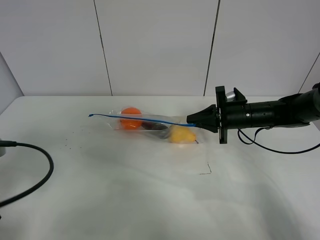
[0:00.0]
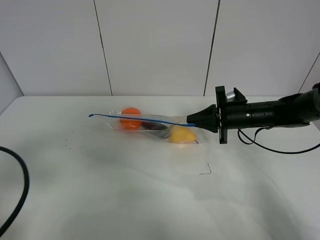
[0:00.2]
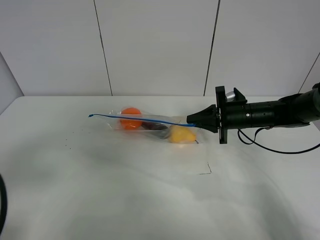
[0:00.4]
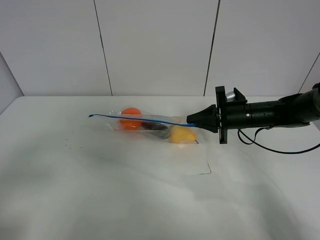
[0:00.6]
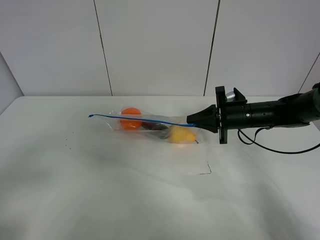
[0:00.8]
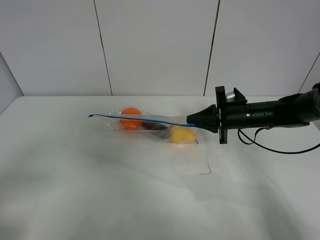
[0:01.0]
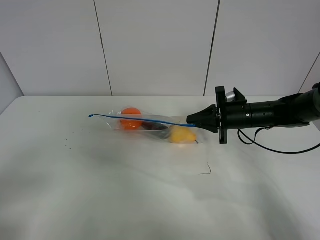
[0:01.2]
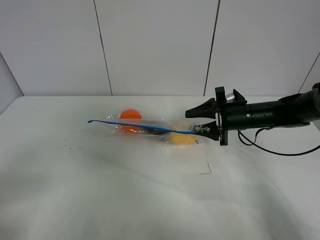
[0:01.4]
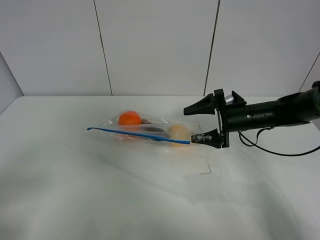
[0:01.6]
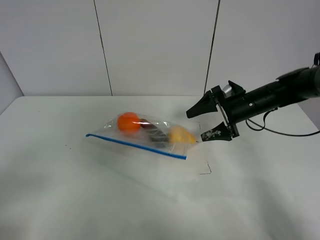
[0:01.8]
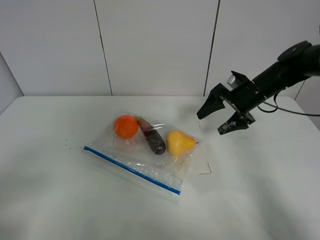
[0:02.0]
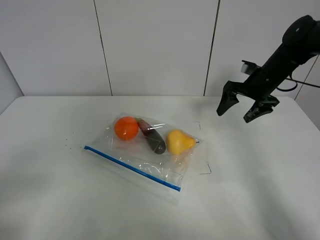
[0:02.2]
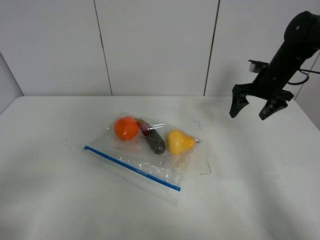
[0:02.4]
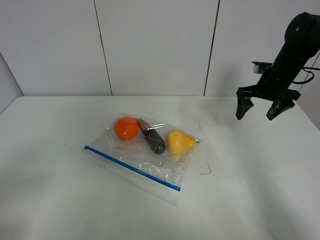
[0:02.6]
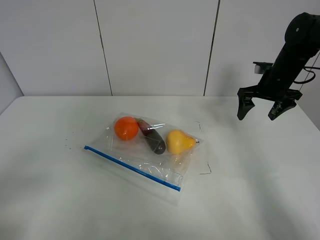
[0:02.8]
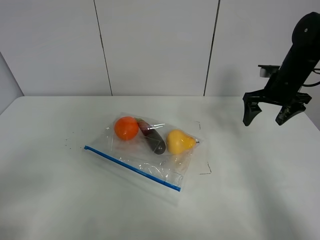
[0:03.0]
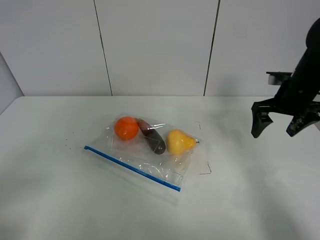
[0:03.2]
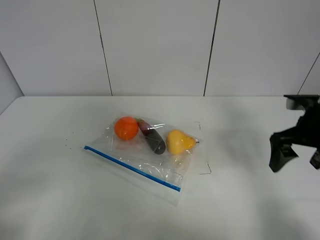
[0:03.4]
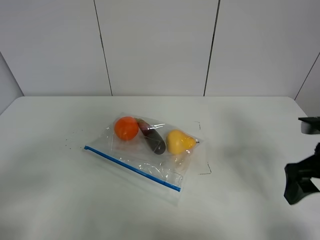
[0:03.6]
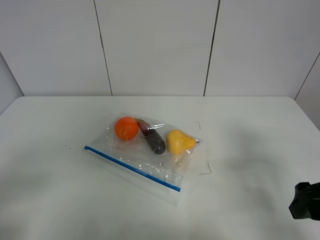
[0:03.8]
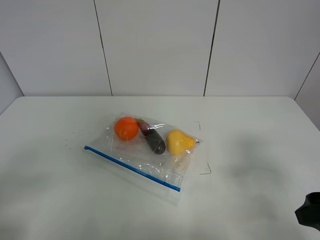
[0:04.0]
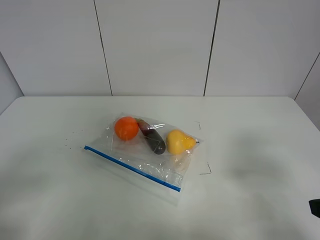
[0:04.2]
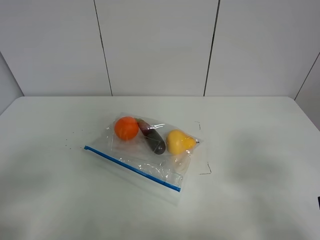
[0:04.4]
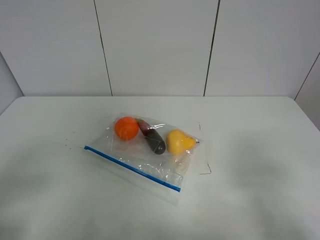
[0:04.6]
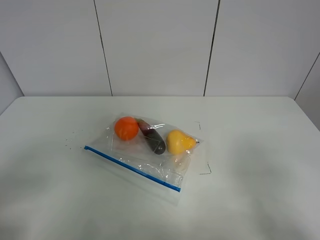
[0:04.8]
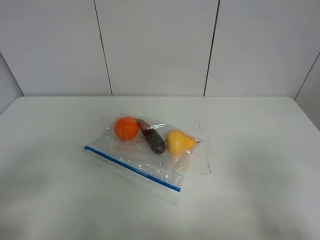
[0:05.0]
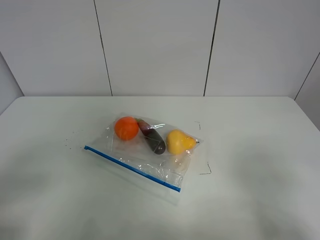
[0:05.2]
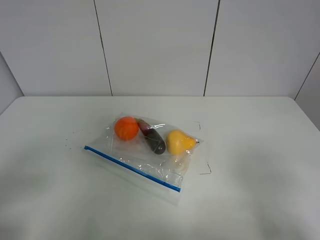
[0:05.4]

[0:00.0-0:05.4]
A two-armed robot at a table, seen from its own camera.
Step, 0:00.0 to 0:02.0: Place the fruit bag with right gripper.
0:00.0 to 0:01.4: The right gripper opens its fingers. The left gripper heads backward, covering approximately 10 cm.
0:01.4 to 0:02.8: The right gripper travels upward, to the right and forward by some 15 cm.
0:02.8 to 0:04.0: The right gripper travels backward by about 30 cm.
0:04.0 to 0:05.4: The right gripper shifts some 10 cm backward.

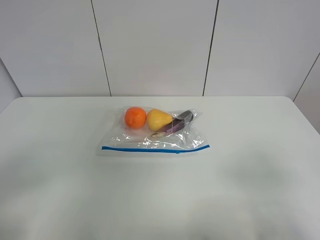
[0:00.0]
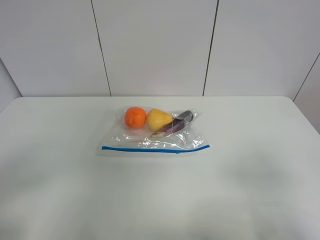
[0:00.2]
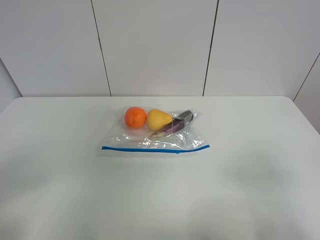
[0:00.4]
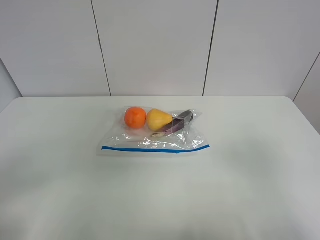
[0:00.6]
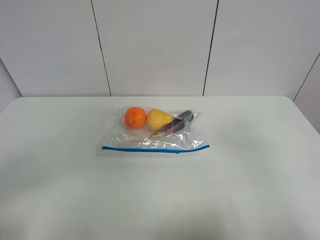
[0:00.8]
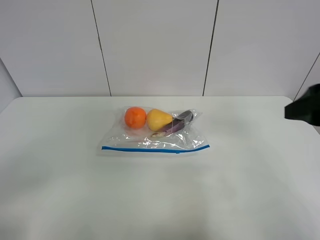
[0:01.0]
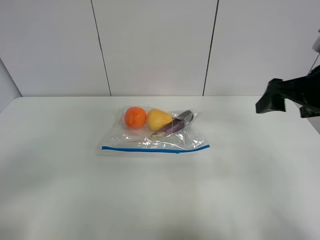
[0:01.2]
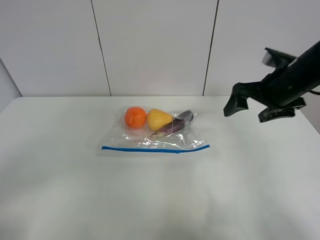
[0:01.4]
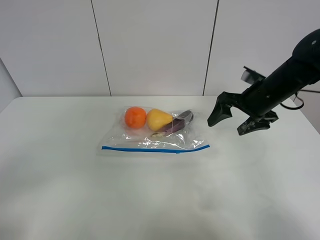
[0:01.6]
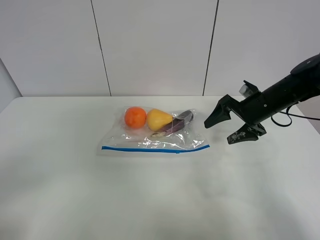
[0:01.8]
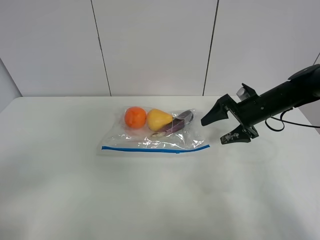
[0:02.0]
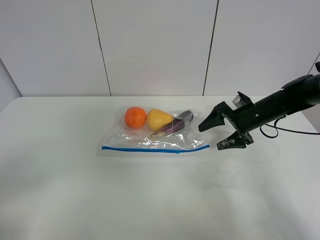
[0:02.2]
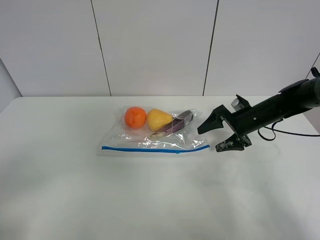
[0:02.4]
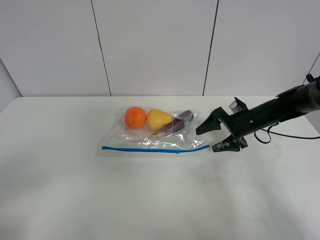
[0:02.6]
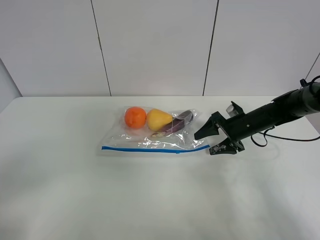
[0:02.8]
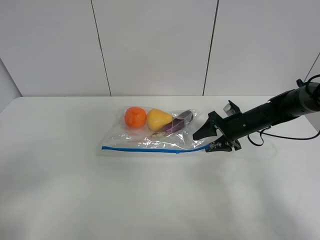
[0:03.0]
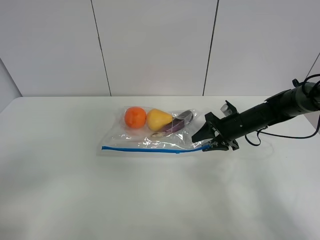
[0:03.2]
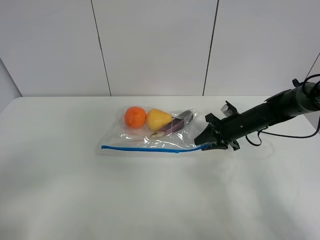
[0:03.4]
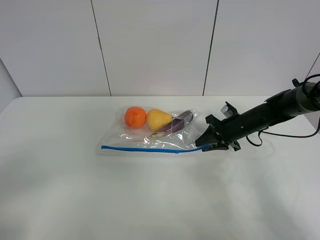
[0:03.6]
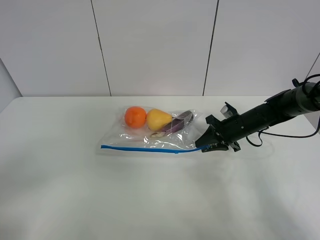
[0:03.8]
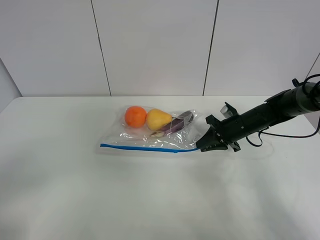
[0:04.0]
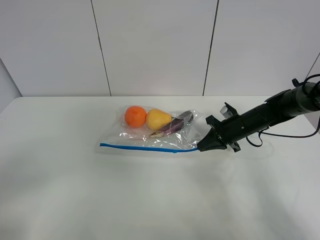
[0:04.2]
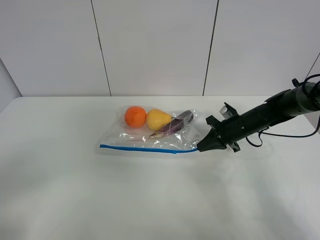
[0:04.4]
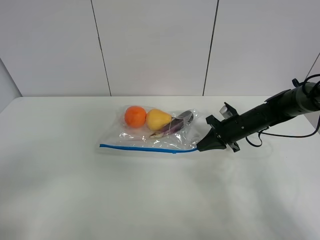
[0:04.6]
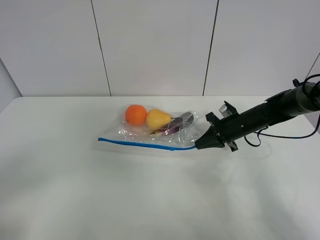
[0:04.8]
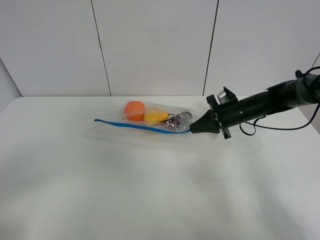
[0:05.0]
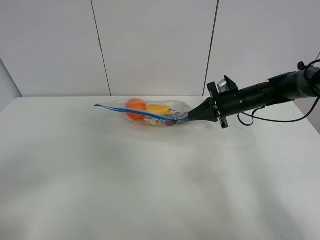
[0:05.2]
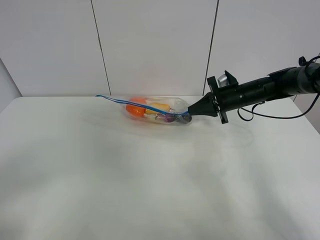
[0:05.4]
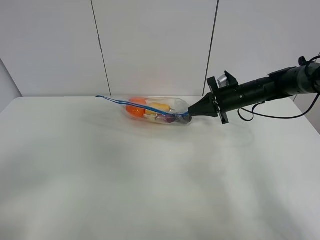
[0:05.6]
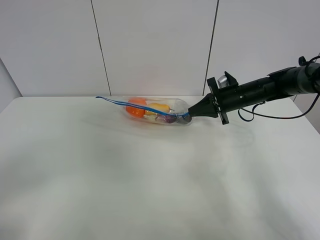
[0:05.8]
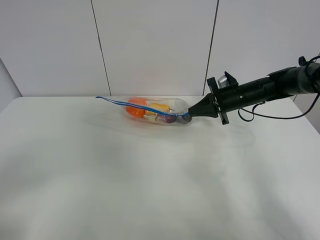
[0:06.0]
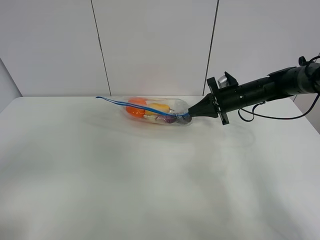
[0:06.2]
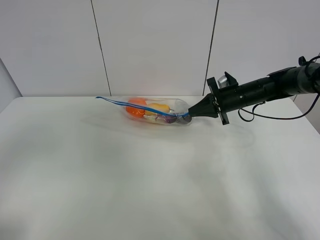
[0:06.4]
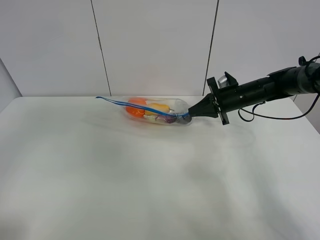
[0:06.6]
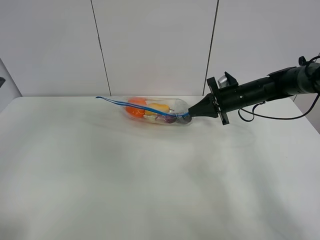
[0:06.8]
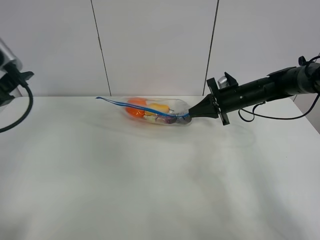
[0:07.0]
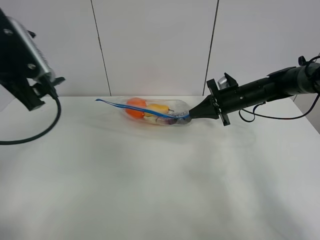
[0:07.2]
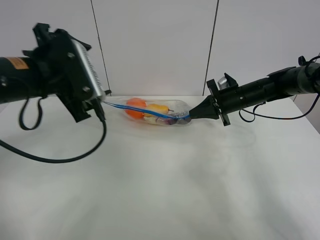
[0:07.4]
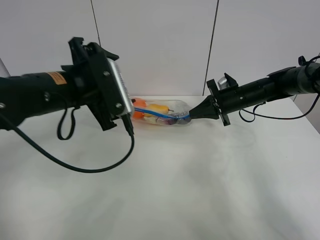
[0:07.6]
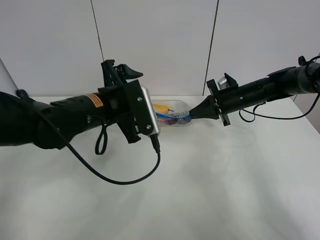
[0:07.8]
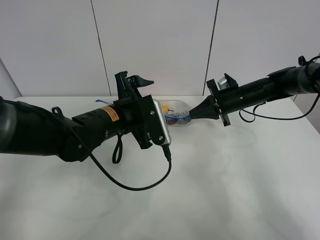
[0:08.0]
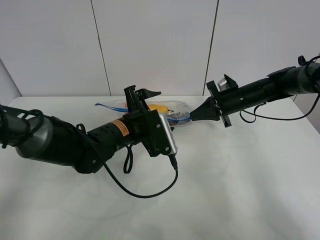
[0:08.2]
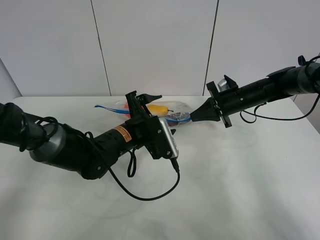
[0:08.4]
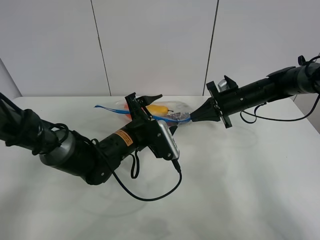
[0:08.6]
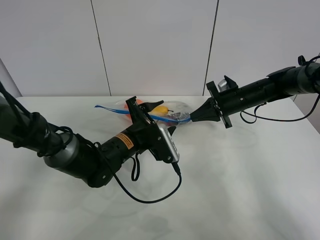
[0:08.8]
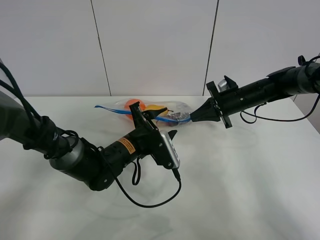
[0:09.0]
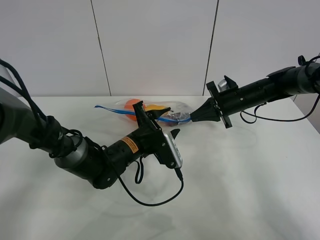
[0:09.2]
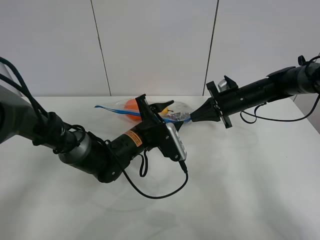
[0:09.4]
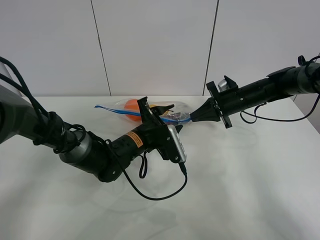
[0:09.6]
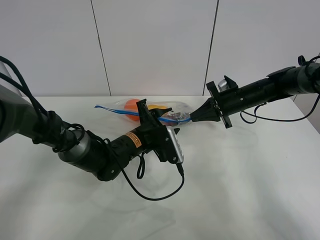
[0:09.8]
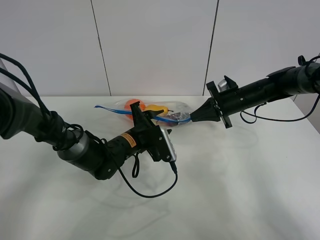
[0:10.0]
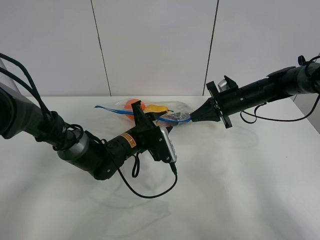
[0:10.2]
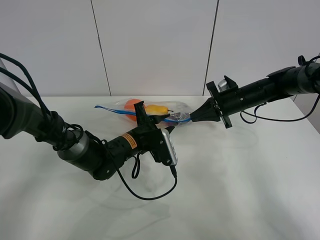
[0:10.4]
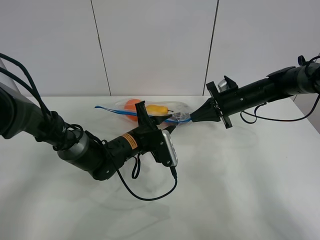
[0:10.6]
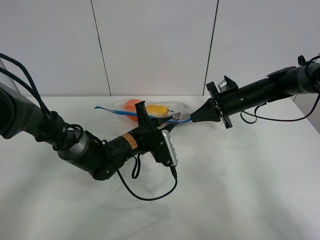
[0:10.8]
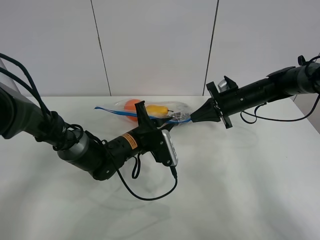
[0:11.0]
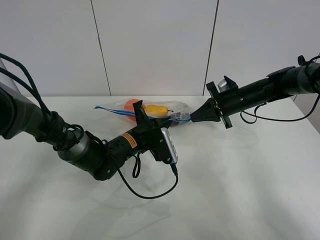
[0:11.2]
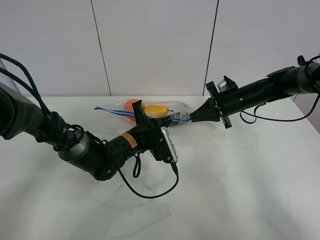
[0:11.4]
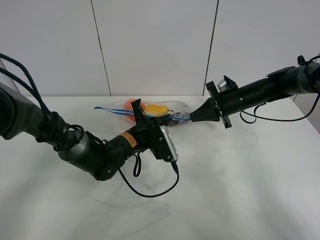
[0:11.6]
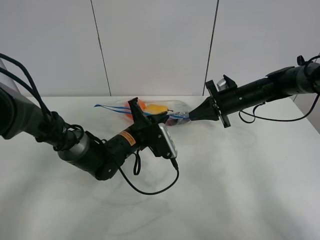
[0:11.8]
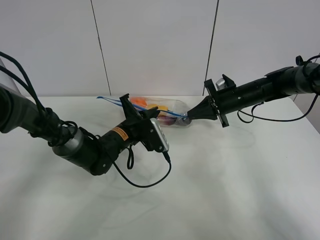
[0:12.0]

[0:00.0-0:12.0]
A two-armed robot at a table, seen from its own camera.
Step, 0:00.0 to 0:04.2: Grasp the fruit bag with right gripper.
Step, 0:04.4 to 0:05.8: Lift the fruit bag with your right gripper.
0:00.0 to 0:01.6: The right gripper travels forward by roughly 35 cm.
0:01.6 to 0:03.0: The right gripper is displaced downward by roughly 10 cm.
0:03.0 to 0:04.4: The right gripper closes up.
0:04.4 to 0:06.0: The right gripper is displaced upward by approximately 5 cm.
0:06.0 to 0:07.6: The left gripper is displaced forward and to the right by about 30 cm.
0:07.6 to 0:09.0: The left gripper shifts about 20 cm downward and to the right.
0:09.0 to 0:10.4: The grippers stay close to where they were, moving slightly.
0:10.4 to 0:12.0: The left gripper closes up.

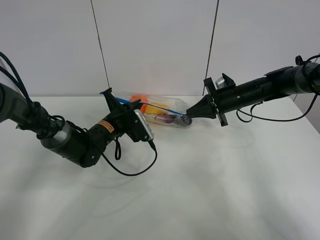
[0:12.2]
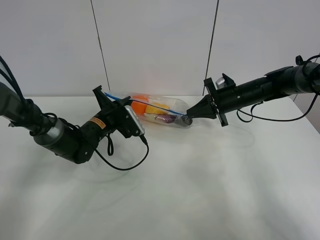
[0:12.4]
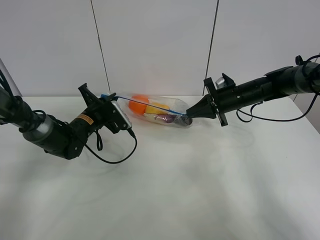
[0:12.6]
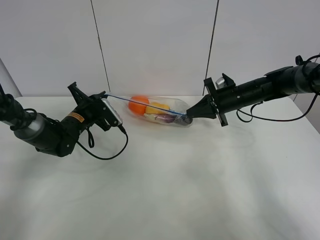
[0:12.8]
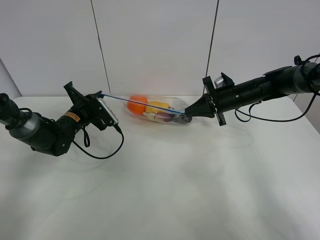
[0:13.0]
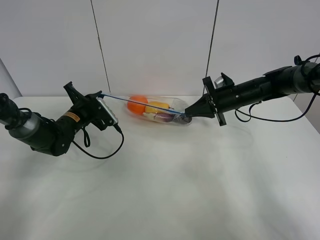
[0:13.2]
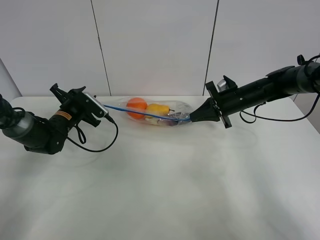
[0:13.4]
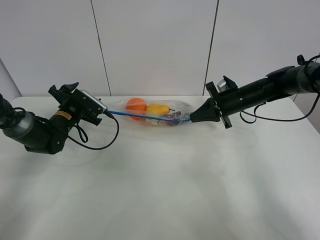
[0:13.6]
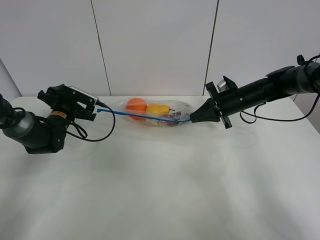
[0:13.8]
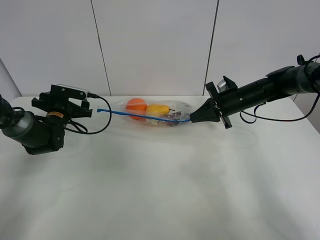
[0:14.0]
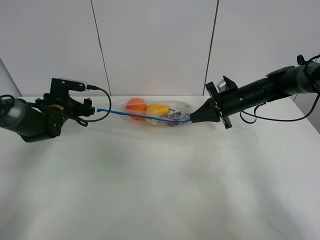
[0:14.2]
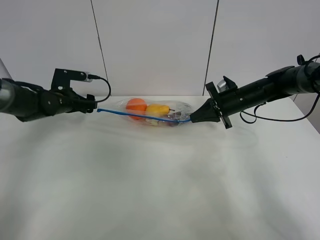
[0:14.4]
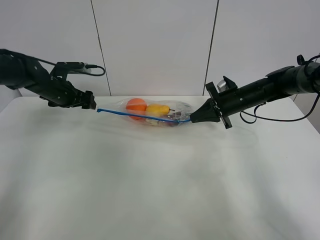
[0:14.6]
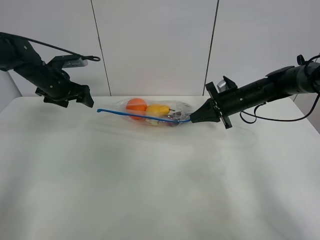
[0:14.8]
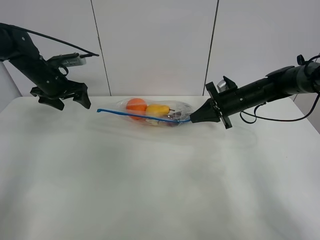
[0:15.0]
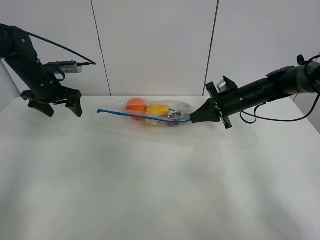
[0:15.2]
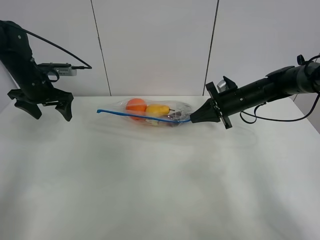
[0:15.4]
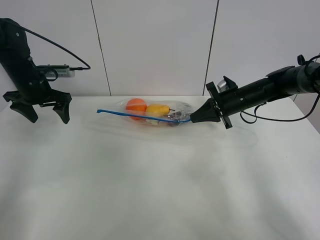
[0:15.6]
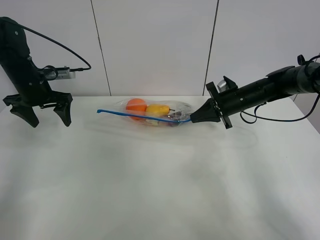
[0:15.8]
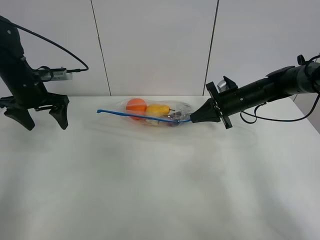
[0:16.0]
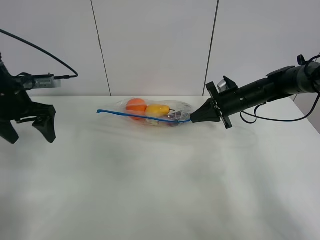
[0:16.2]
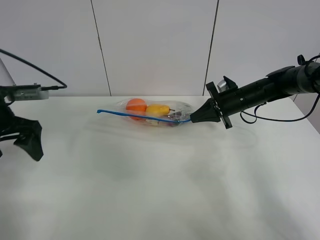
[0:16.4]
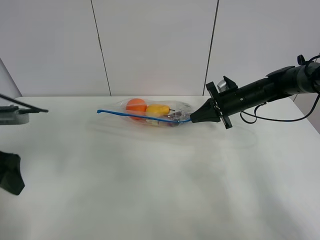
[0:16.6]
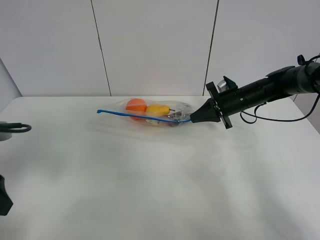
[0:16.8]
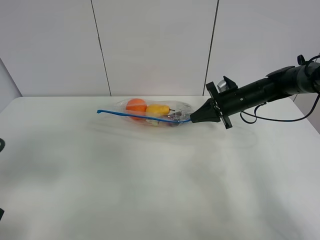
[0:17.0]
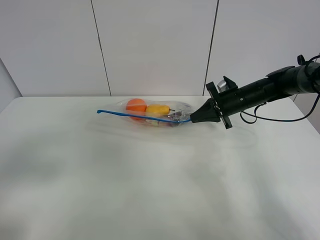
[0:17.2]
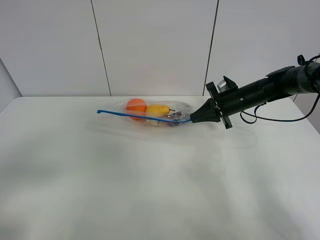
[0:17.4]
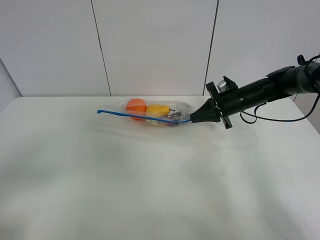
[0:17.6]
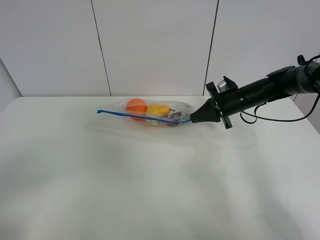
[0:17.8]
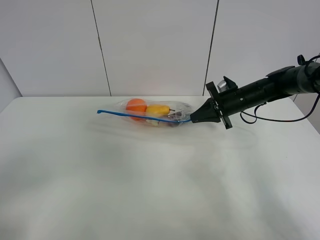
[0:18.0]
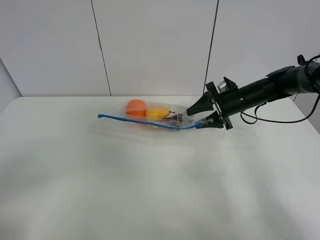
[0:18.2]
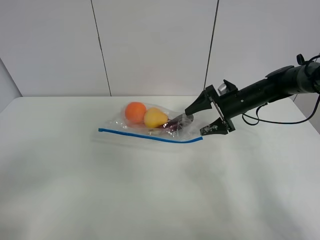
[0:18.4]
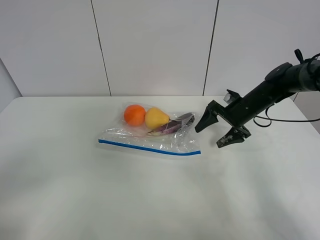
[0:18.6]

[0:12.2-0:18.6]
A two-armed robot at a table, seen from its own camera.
0:12.2 to 0:13.8: The left gripper is displaced to the left by some 15 cm, and opens up.
0:13.8 to 0:15.4: The left gripper shifts roughly 10 cm upward.
0:15.4 to 0:17.0: The left gripper goes some 30 cm backward.
0:17.0 to 0:18.6: The right gripper opens. Meanwhile the left gripper heads backward, covering approximately 10 cm.
